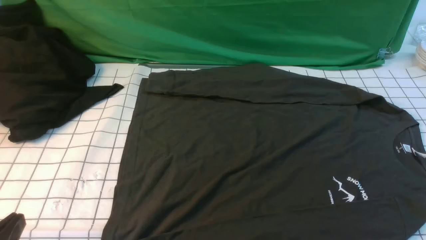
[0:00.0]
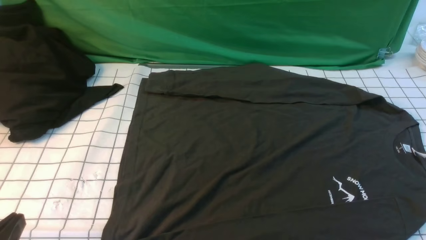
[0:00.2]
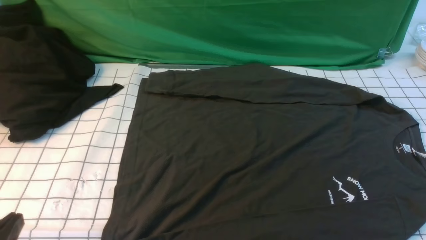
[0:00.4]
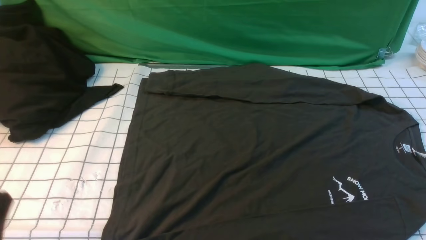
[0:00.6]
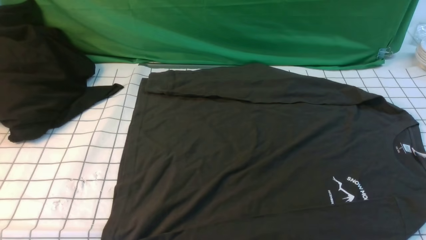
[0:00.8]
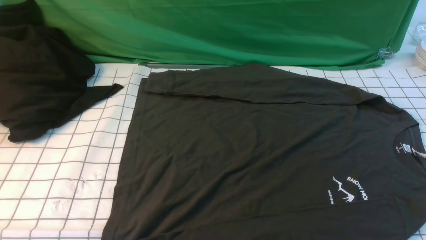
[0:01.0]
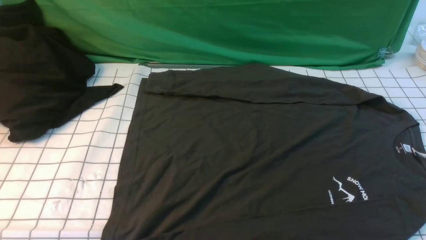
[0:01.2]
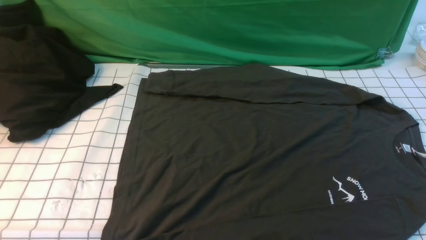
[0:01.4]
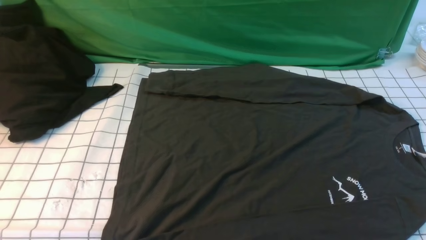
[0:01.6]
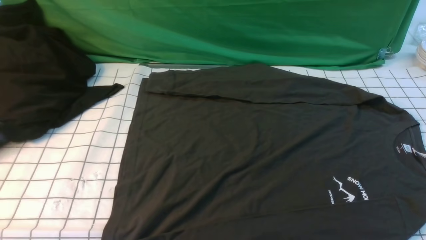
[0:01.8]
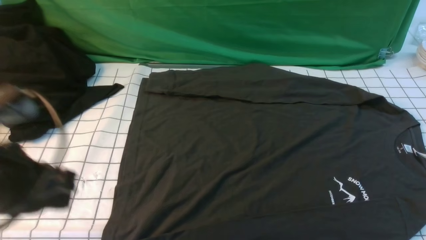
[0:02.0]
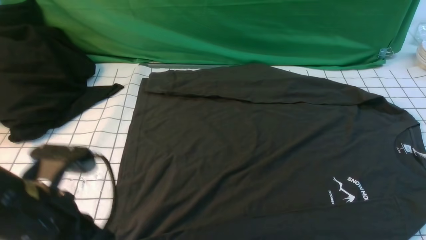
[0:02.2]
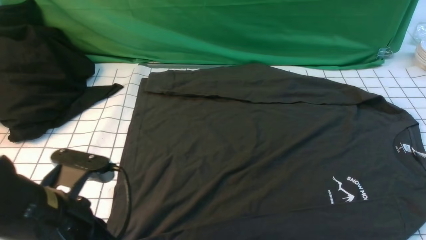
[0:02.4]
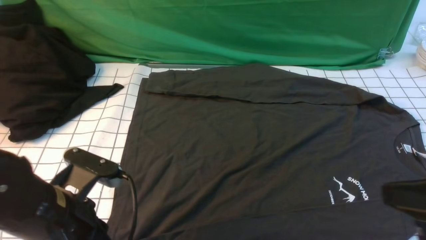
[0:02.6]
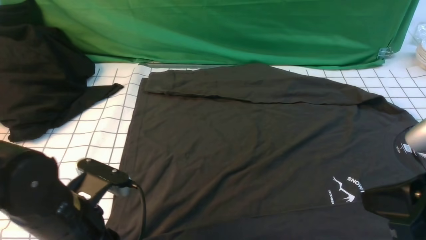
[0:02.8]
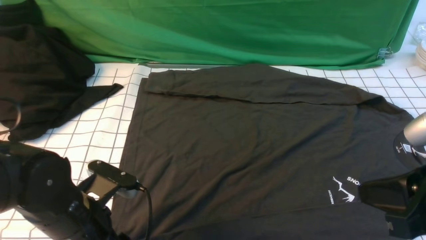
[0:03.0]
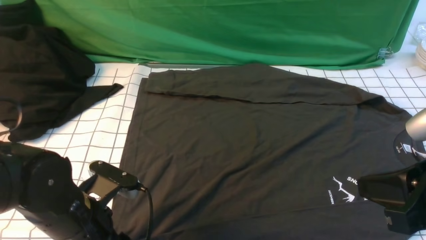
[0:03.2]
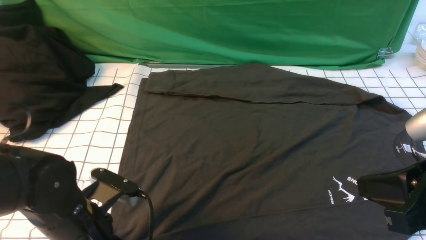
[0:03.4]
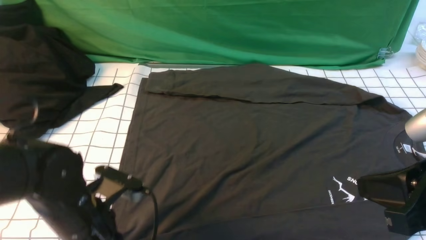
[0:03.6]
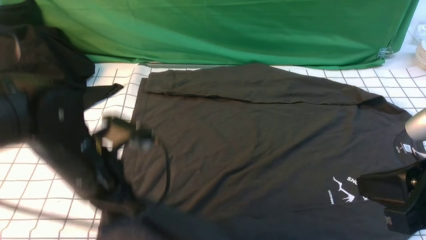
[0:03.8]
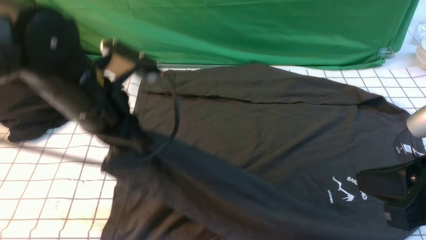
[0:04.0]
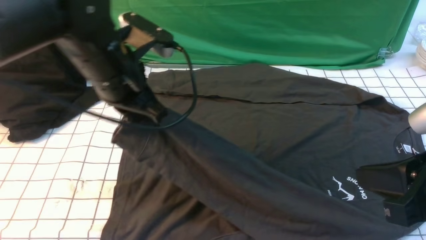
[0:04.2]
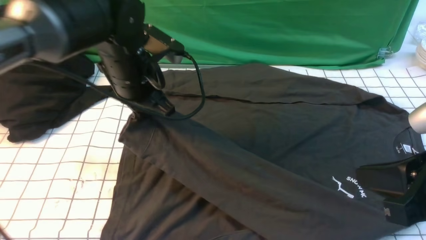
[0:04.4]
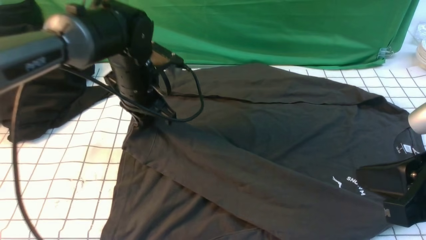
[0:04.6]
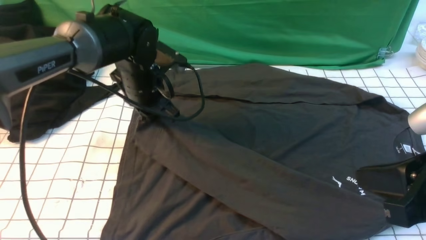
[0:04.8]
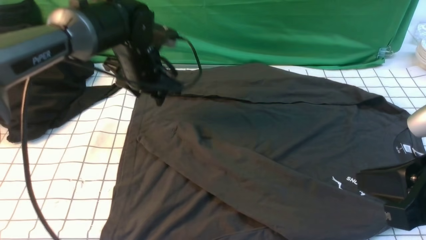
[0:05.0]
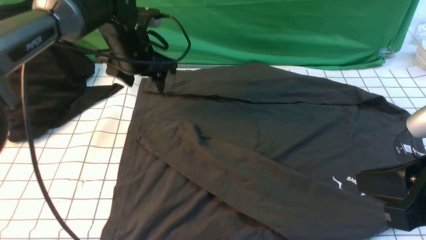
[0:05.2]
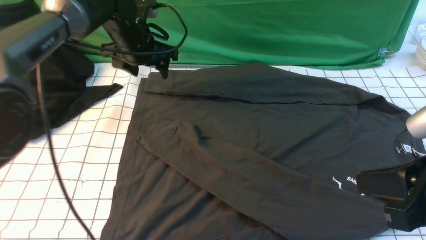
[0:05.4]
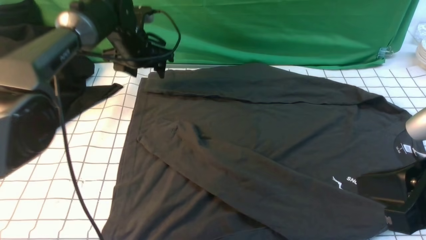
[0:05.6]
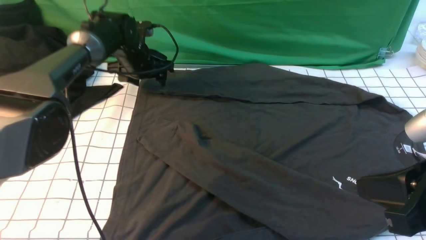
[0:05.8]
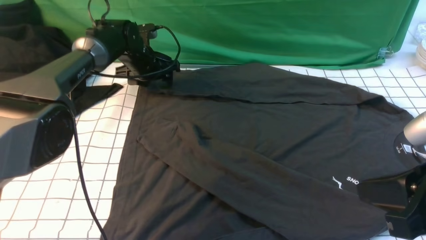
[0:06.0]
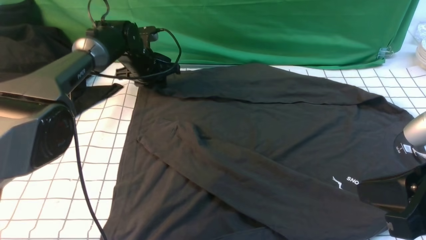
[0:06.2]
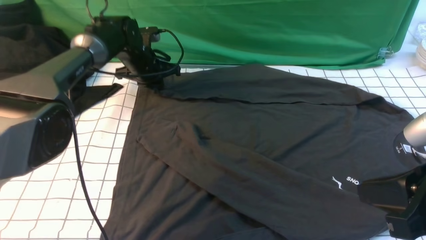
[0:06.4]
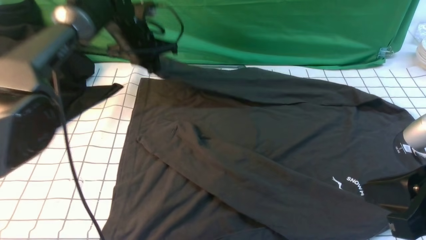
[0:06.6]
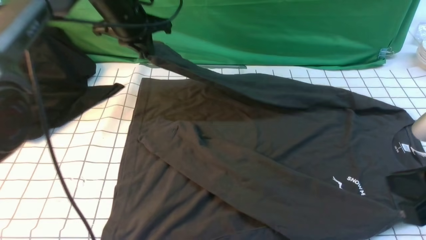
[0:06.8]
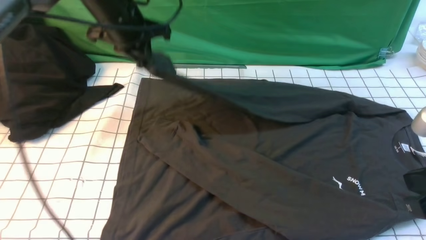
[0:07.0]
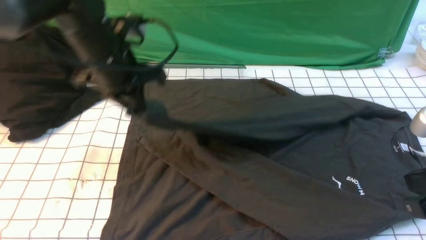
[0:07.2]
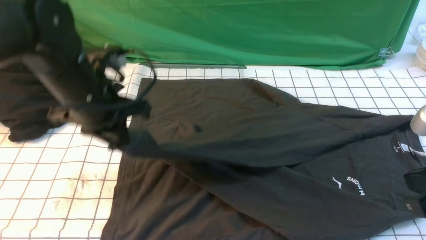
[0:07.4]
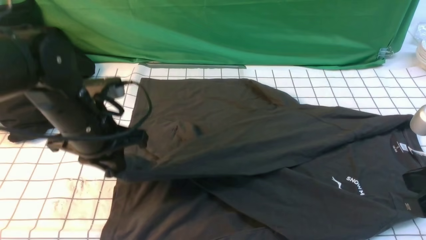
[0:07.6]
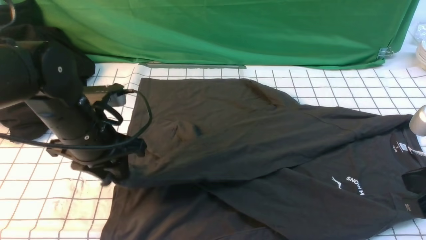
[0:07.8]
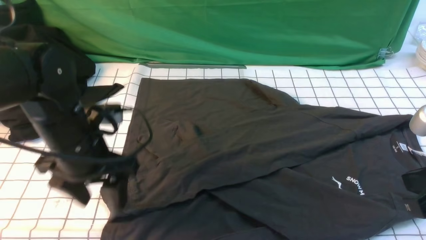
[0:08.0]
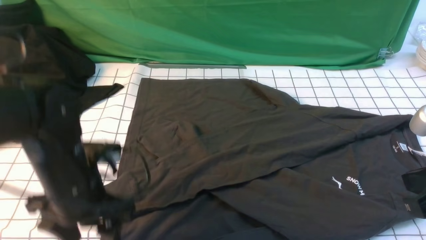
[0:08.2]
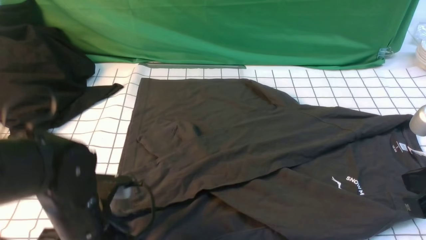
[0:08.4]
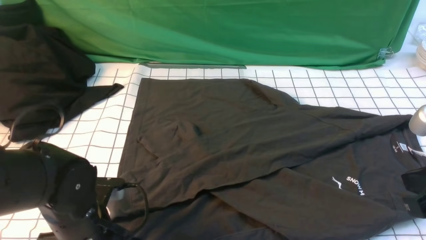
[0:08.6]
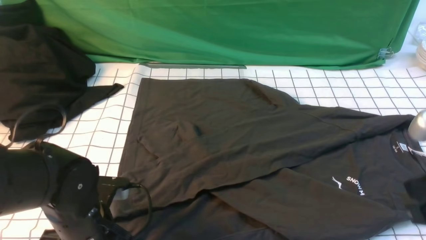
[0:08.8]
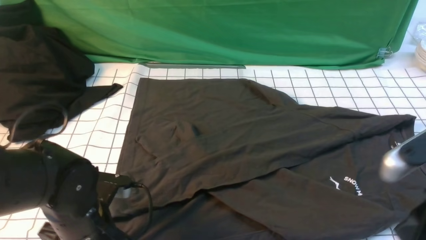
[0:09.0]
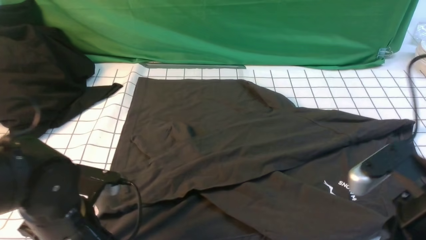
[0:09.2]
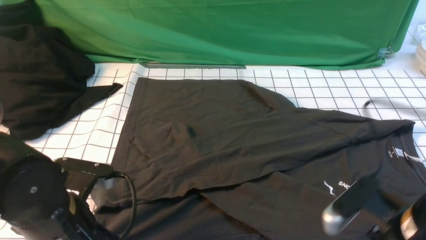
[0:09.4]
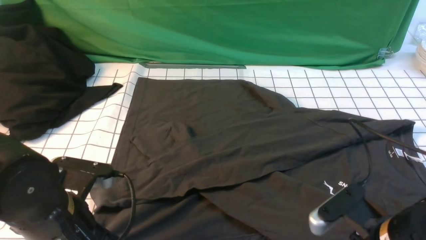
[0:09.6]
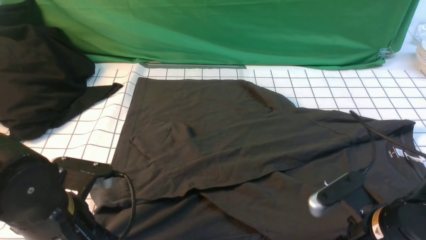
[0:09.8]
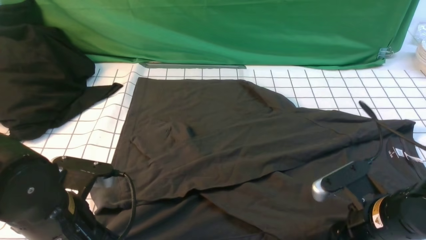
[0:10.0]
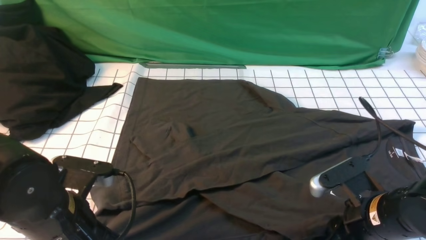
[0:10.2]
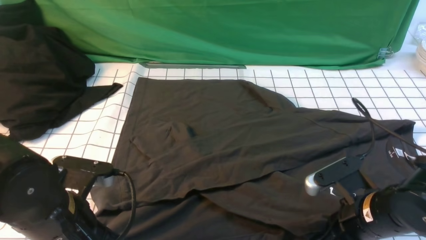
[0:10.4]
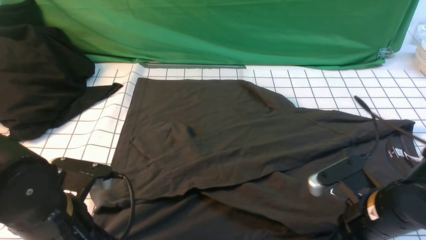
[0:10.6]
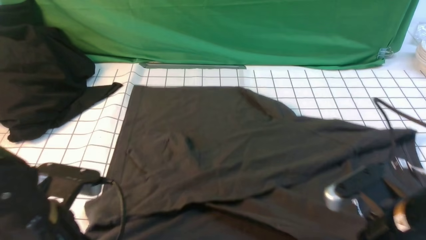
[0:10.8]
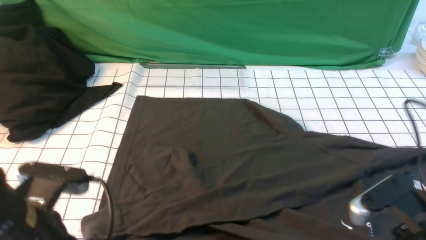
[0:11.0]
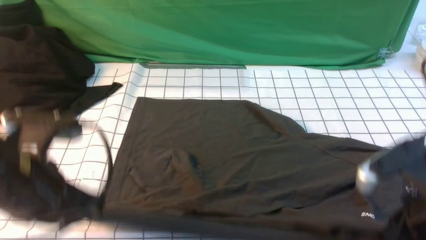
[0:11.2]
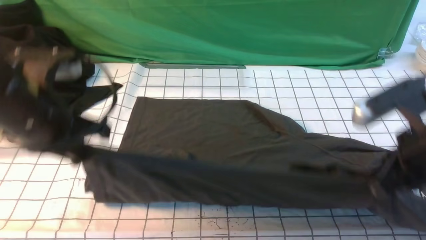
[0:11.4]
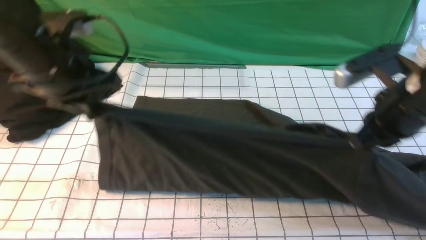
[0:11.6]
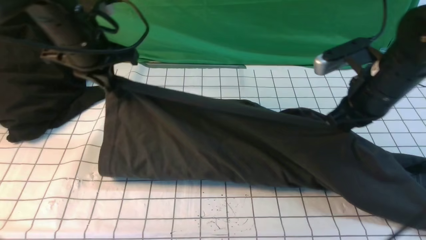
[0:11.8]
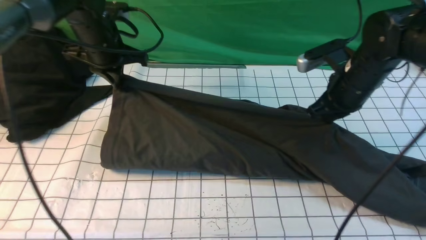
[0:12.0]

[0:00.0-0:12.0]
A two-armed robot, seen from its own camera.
Step, 0:00.0 to 0:03.6: use the left arm to clamp the cuff closest to it.
Step, 0:03.8 to 0:05.0: use the left arm to drag and place the cuff at the centered position on the left edge of the fabric.
Step, 0:05.2 to 0:06.2: use the left arm to clamp the cuff farthest from it.
Step, 0:06.6 to 0:07.8: use the left arm to drag and drop the cuff onto the cuff closest to the left arm.
Step, 0:08.2 to 0:11.0: use both arms simultaneously to clamp the lower edge of the clothing fabric.
0:01.6 to 0:03.0: The left gripper goes roughly 20 cm downward, forward and to the right, and opens, while the right gripper is displaced upward, to the left and forward by approximately 15 cm, and closes.
0:03.0 to 0:04.4: The left gripper travels forward and upward by approximately 20 cm, and closes its fingers.
0:04.4 to 0:06.0: The left gripper shifts roughly 20 cm forward and downward, and opens up.
0:06.0 to 0:07.6: The left gripper goes approximately 25 cm backward, and closes up.
0:07.6 to 0:09.0: The left gripper heads backward and downward, covering roughly 15 cm, and opens and closes again.
0:09.0 to 0:10.4: The right gripper goes approximately 15 cm downward and forward, and opens, then closes again.
0:10.4 to 0:12.0: The left gripper travels forward by roughly 30 cm, while the right gripper shifts some 20 cm forward and upward.

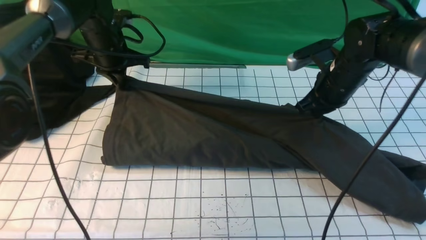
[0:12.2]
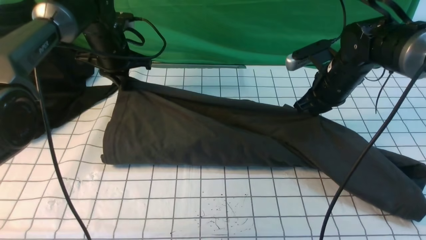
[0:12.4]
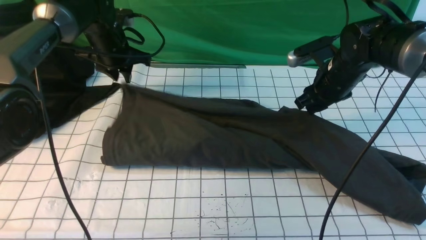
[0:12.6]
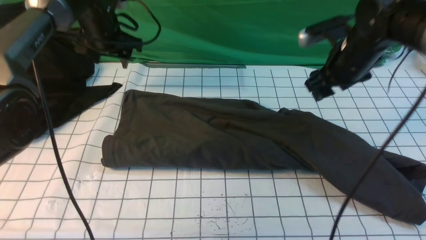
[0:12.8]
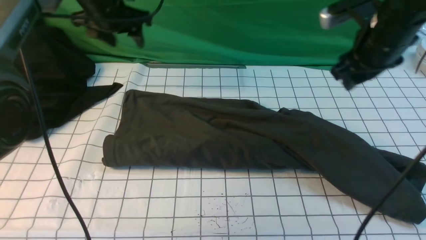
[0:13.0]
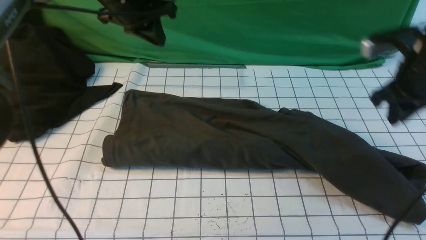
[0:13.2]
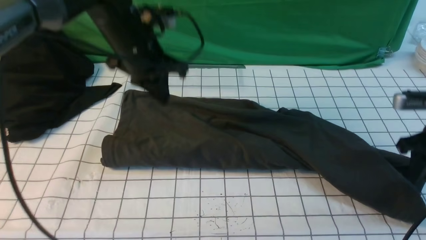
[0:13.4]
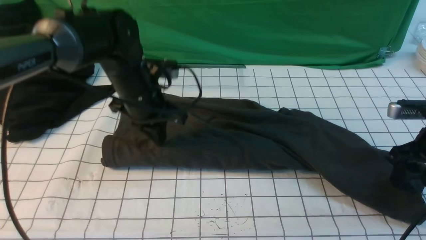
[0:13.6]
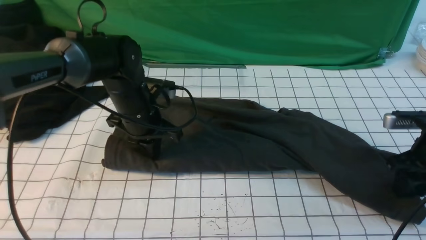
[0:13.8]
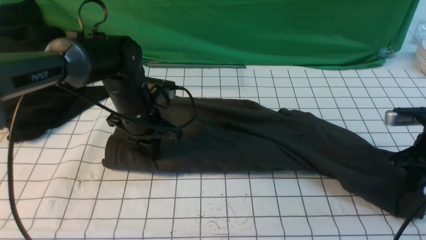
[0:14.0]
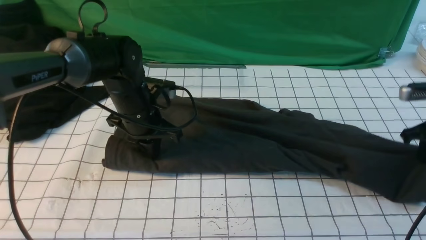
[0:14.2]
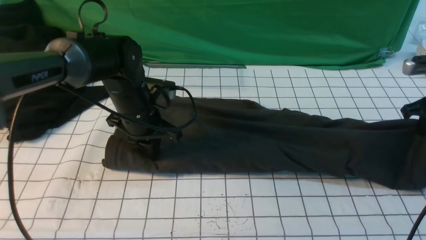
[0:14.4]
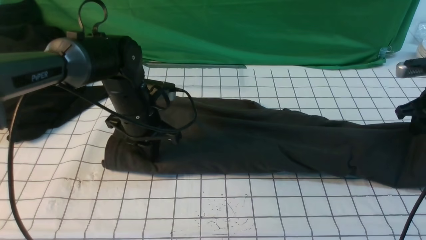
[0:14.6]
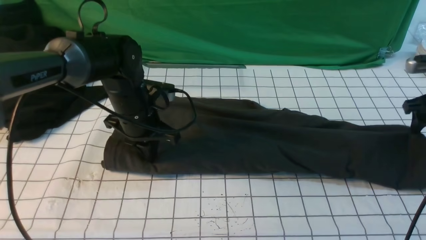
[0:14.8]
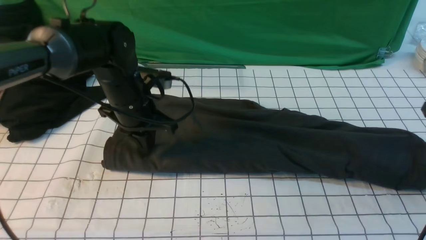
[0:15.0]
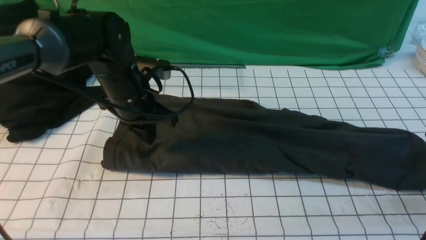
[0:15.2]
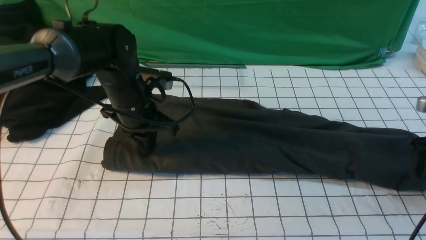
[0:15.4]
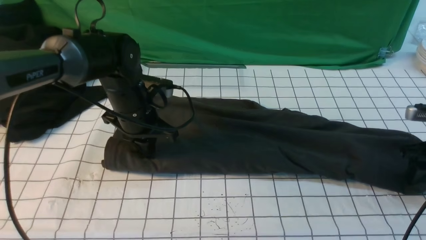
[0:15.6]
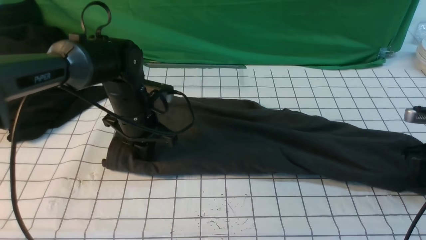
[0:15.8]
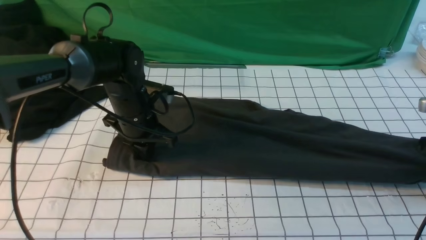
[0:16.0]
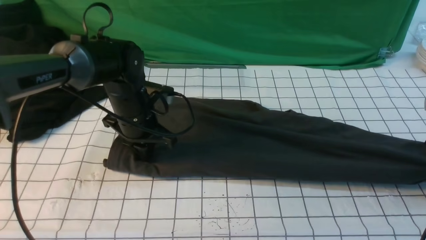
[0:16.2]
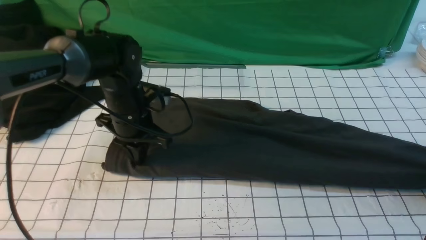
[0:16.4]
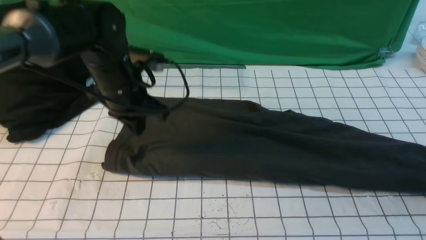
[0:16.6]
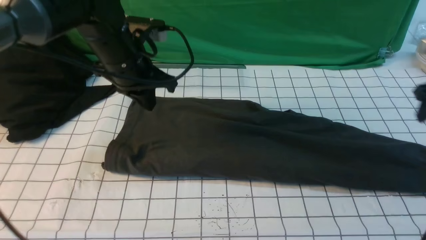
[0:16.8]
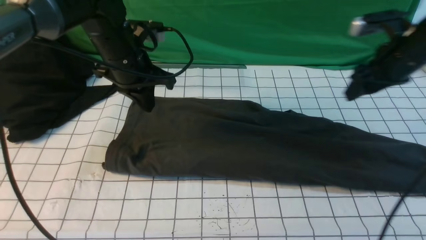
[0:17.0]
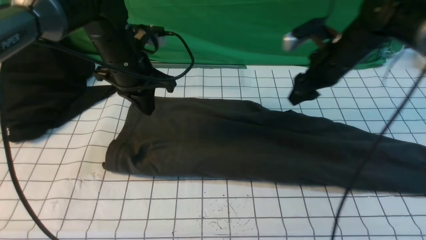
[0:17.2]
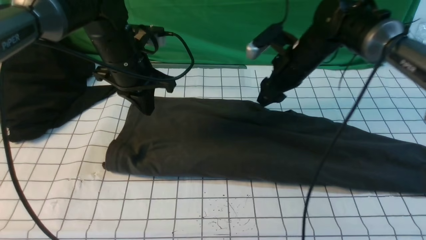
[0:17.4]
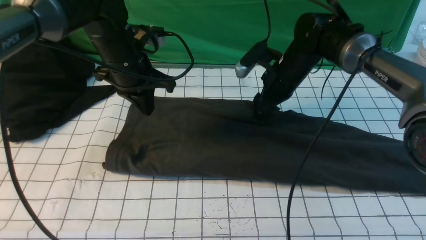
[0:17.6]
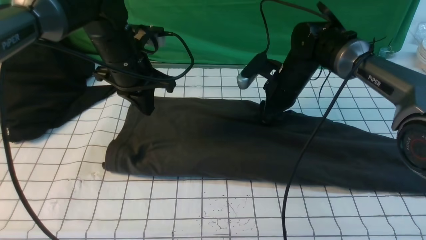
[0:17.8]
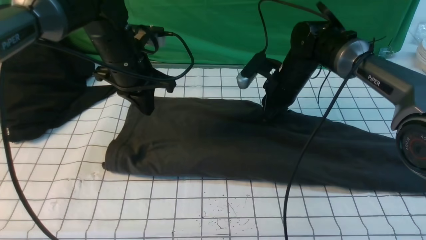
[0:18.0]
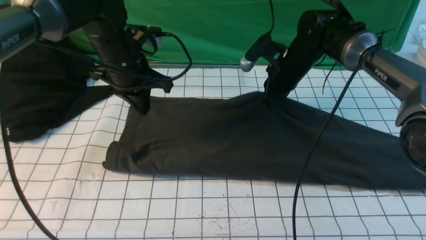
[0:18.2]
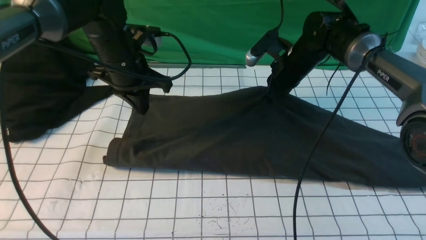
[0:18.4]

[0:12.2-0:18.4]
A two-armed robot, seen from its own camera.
0:12.2 to 0:13.8: The left gripper shifts some 15 cm backward, to the right and downward, and opens and closes again. The right gripper moves to the right and backward, roughly 15 cm, and opens up.
0:13.8 to 0:15.4: The right gripper opens up.
0:15.4 to 0:16.8: Both grippers move upward, approximately 5 cm. The right gripper closes, then reopens.
0:16.8 to 0:18.4: The right gripper heads to the left and forward, covering some 25 cm, and closes.
